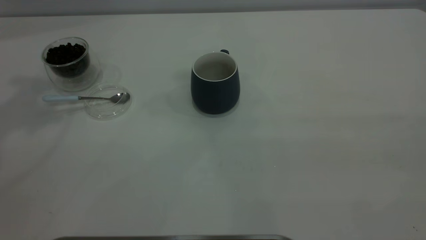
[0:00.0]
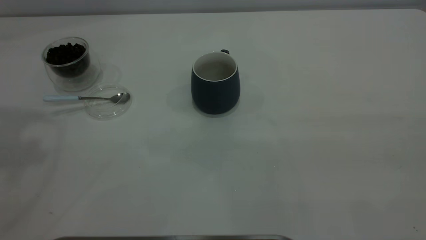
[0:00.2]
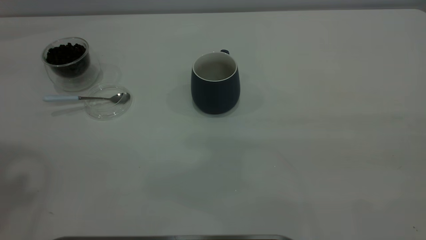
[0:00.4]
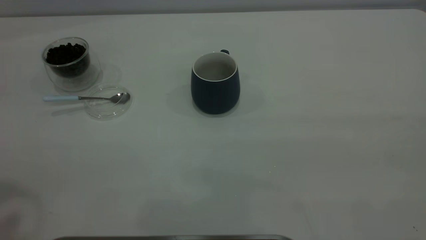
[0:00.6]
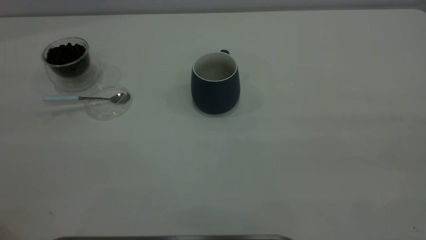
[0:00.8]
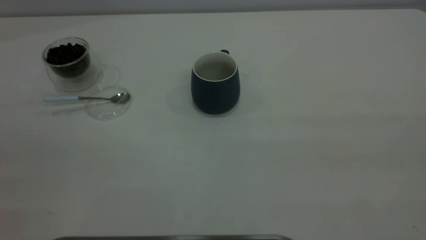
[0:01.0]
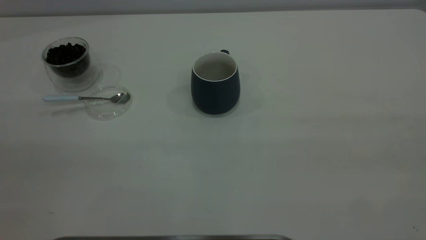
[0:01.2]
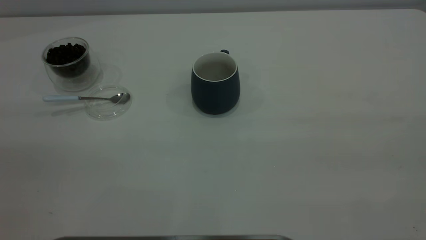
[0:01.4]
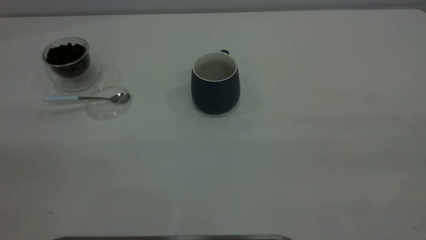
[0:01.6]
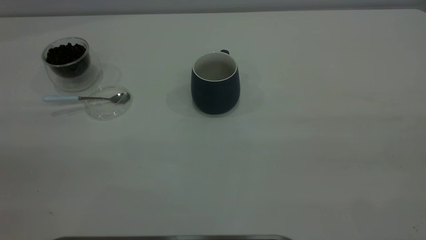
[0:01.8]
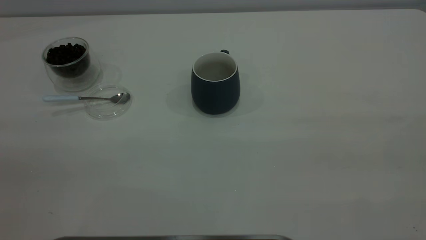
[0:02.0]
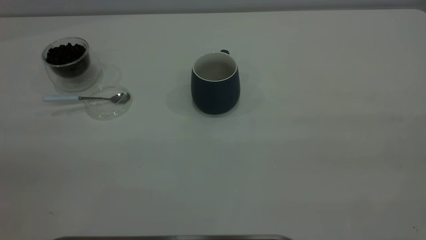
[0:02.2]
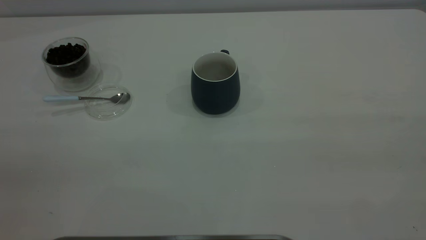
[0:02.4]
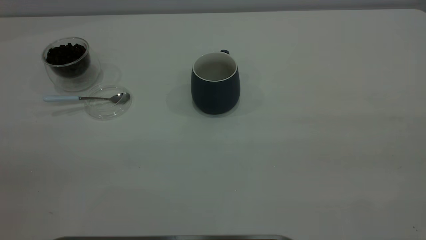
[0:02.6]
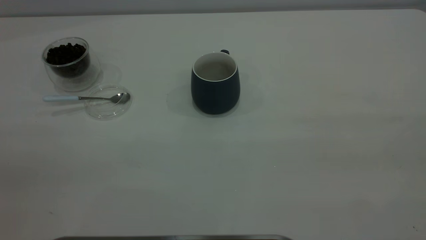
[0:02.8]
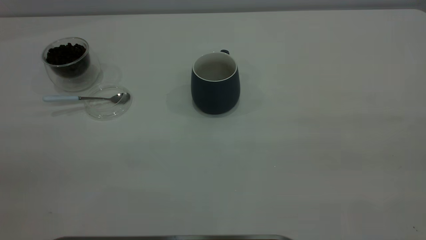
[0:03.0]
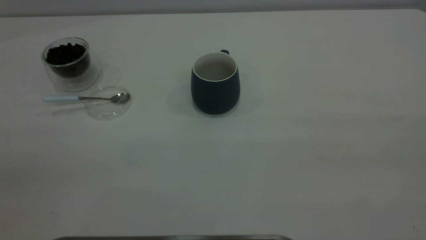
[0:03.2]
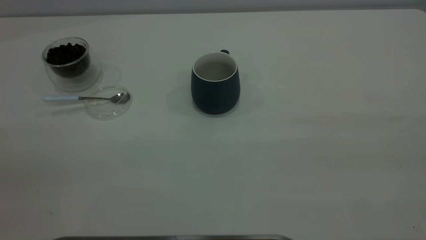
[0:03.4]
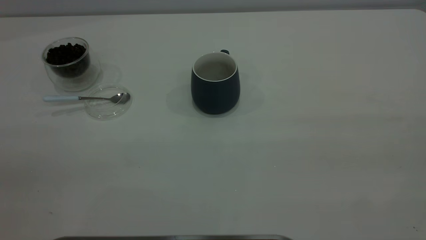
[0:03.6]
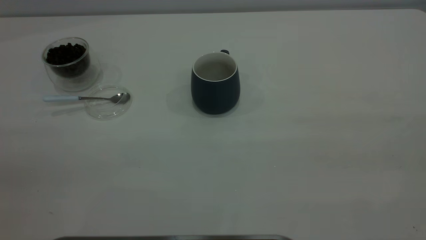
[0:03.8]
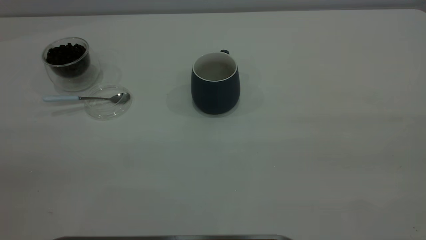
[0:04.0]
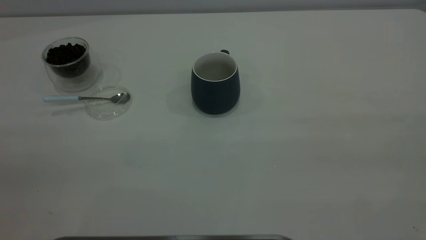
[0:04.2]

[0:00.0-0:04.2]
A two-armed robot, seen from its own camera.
Task of the whole recording: the right gripper place the grey cup in the center of the table, the left gripper take the blue spoon from the cup lid and scoop out the coffee beans from the coffee cup and put them into the grey cup, the left gripper put the spoon back into the cup lid.
0:02.8 to 0:04.2: The two grippers keep their place.
